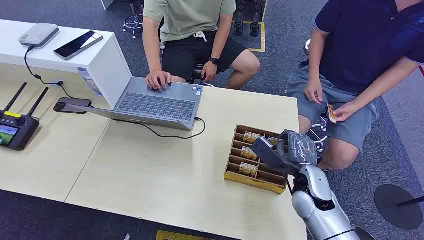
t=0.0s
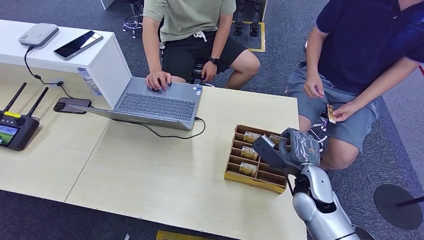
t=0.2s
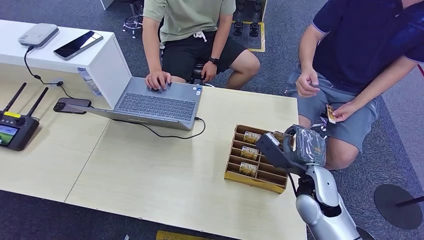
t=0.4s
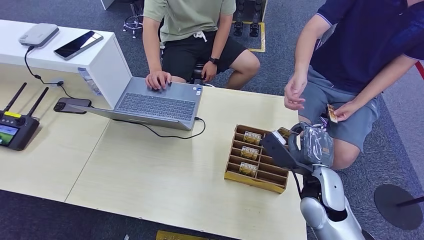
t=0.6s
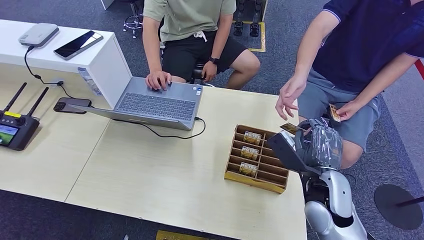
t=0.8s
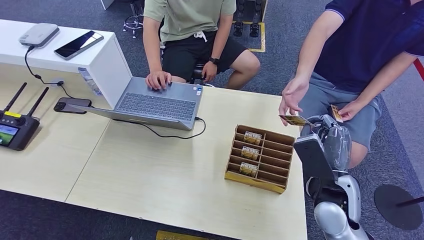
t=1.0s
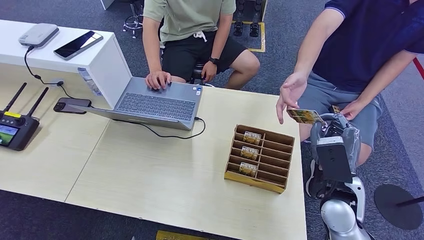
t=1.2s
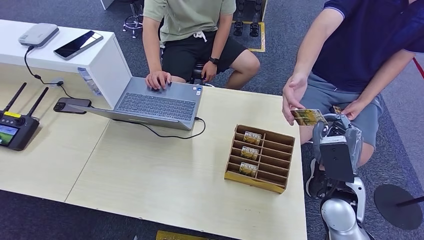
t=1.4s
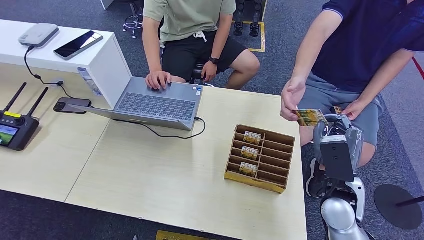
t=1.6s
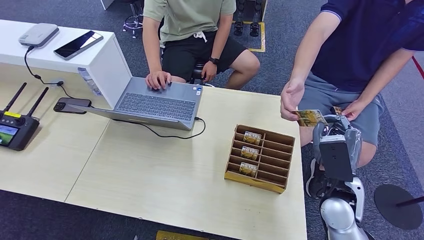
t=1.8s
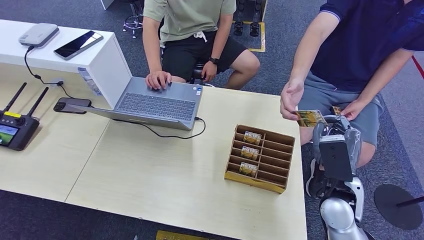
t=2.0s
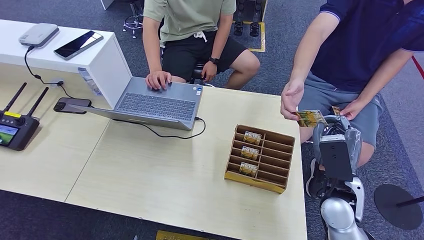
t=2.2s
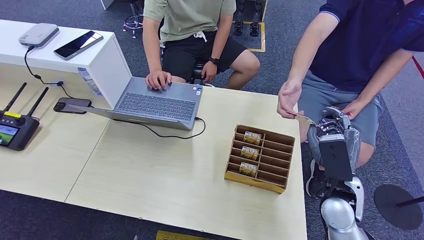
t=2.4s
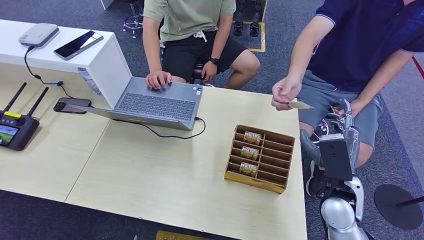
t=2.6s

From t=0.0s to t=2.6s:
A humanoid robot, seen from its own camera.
Step, from t=0.0s to t=0.8s: Pick up the key card from the card box.
Step, from t=1.0s to t=2.6s: Hand the key card to the target.
From t=1.2s to t=2.6s: Neither hand changes place.
